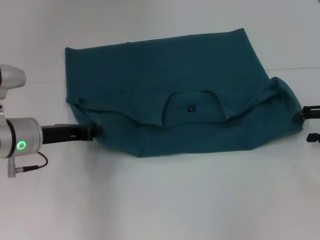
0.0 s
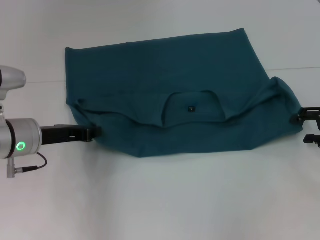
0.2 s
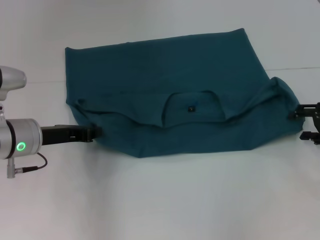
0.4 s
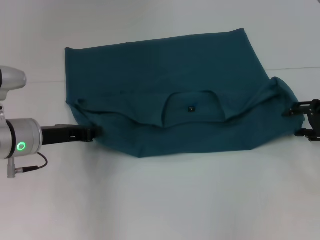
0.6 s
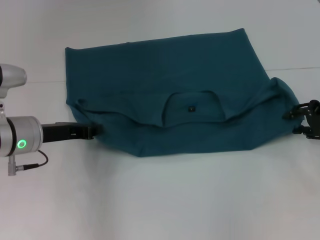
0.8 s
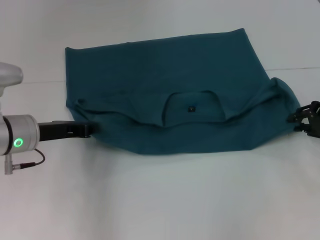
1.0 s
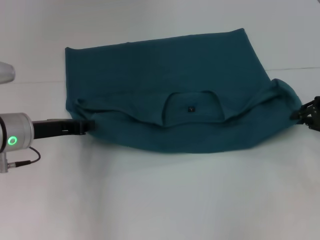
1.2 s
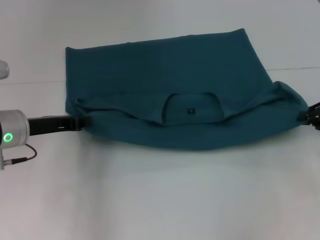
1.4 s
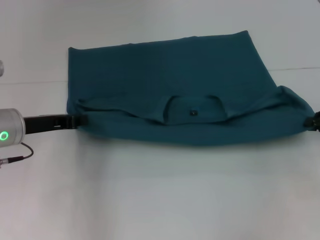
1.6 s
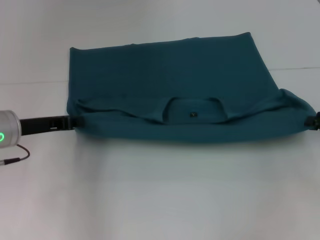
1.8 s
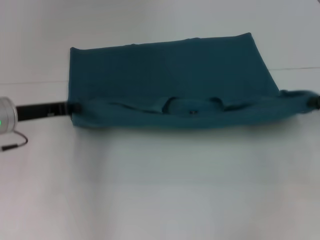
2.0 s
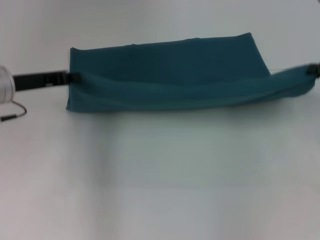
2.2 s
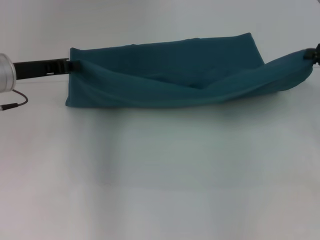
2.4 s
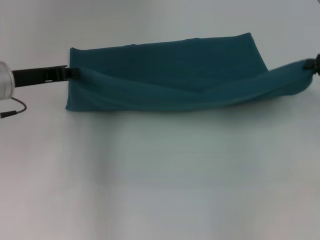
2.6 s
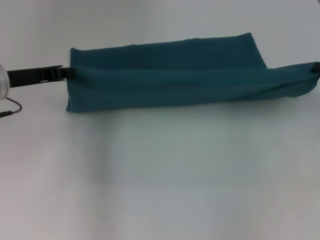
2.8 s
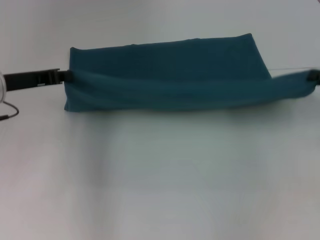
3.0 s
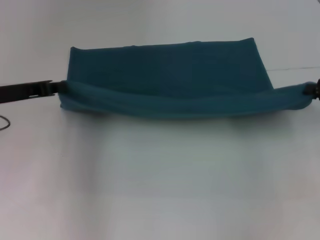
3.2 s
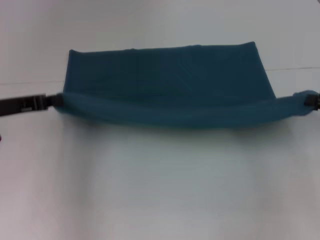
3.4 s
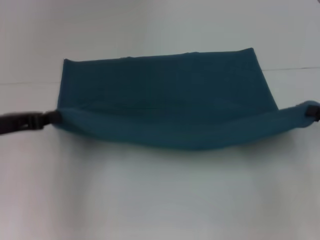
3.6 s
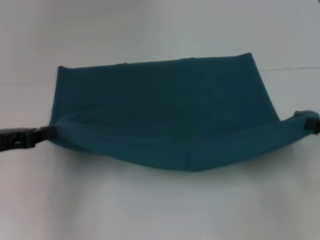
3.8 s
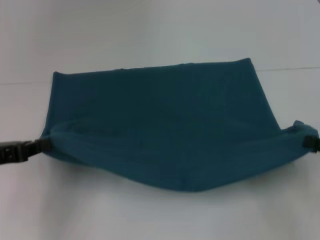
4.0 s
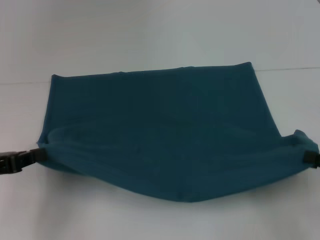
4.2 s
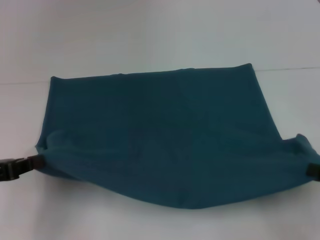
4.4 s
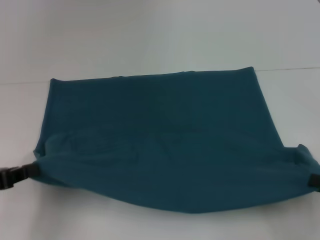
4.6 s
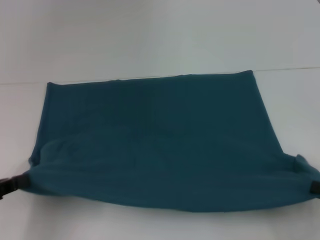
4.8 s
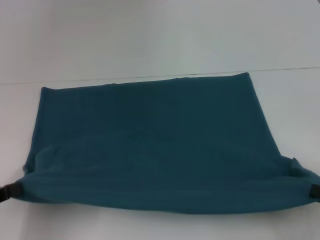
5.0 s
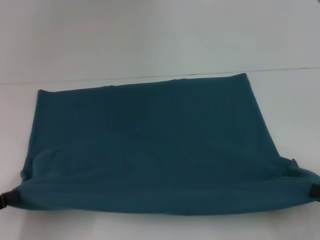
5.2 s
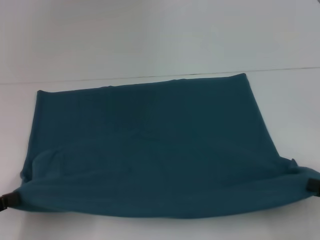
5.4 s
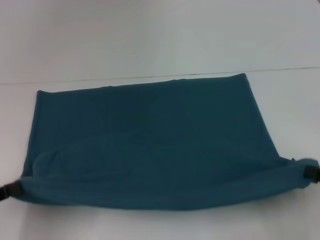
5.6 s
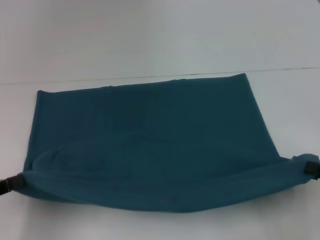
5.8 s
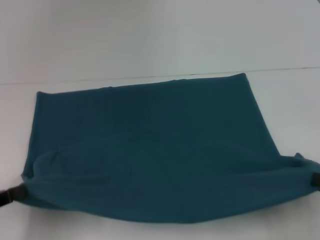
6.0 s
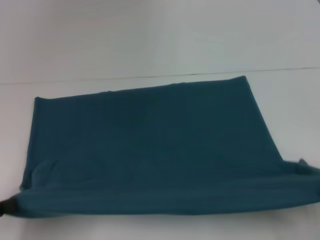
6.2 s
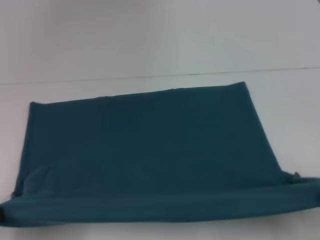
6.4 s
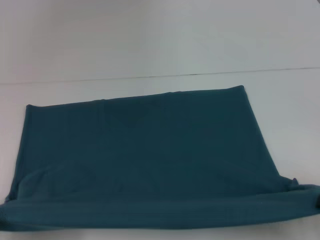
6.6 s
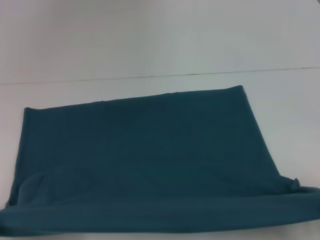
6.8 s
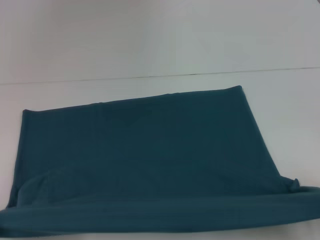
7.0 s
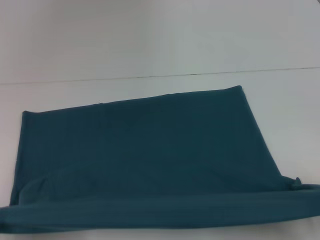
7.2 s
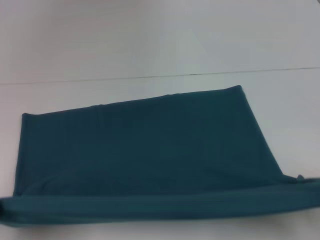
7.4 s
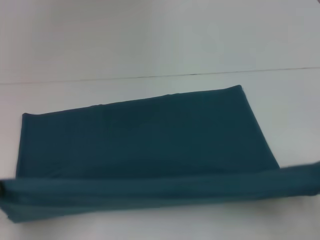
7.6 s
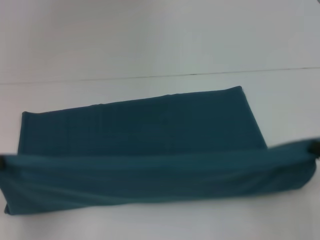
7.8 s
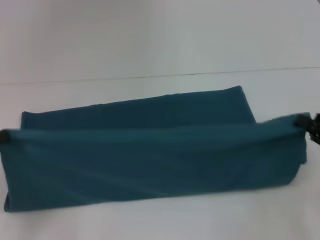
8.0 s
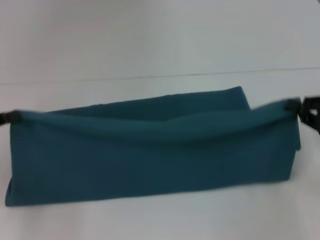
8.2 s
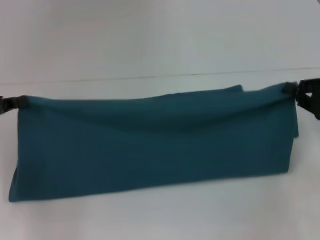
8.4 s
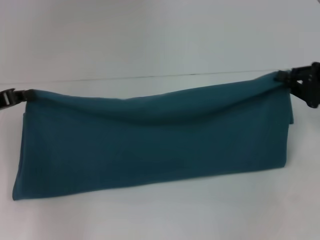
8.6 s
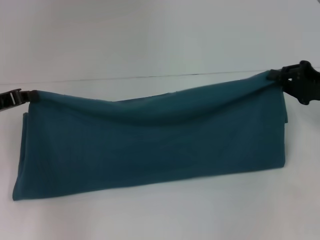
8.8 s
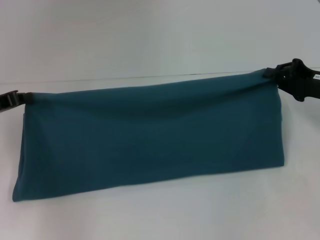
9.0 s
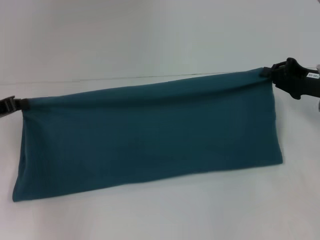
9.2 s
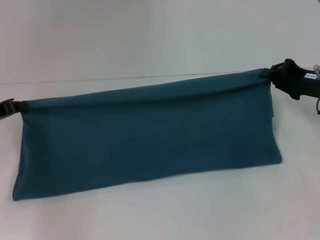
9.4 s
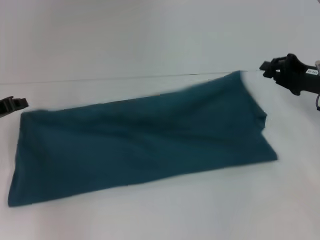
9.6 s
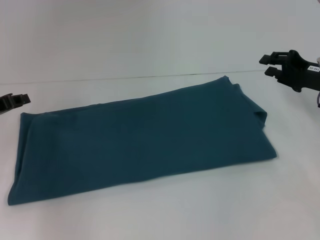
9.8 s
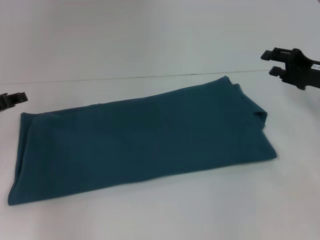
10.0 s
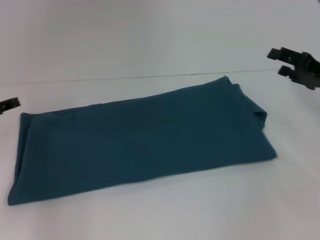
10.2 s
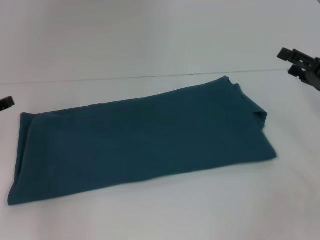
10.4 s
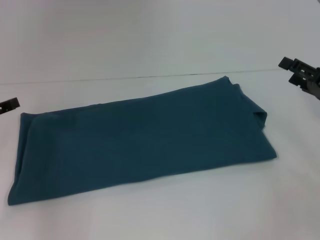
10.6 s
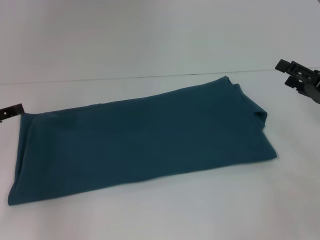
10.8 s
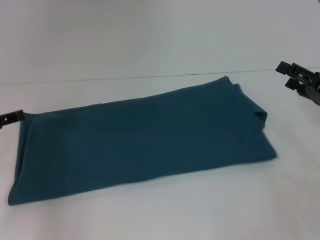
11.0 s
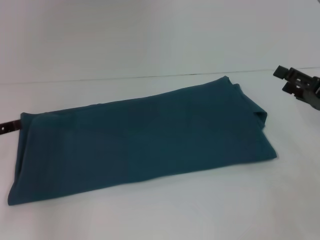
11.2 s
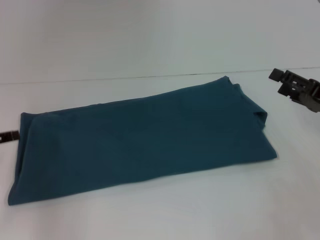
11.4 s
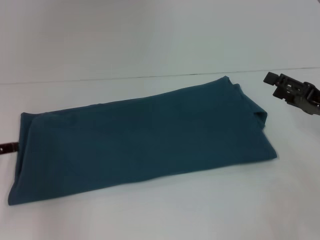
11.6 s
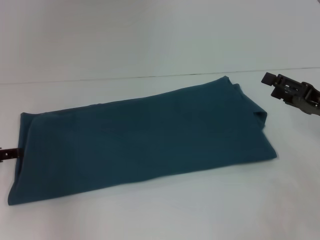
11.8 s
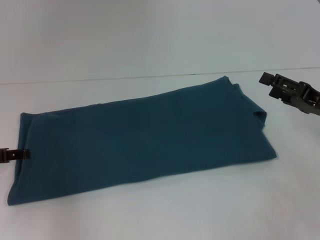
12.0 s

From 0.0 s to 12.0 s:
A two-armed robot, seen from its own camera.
Step, from 0.0 s to 6.4 s: Pull the clothes with your left hand.
Step, from 0.0 s to 6.4 s: Pull the clothes with your right hand.
Step, from 6.6 s to 11.0 s: Fold the clothes to the left.
Step, from 6.6 s to 11.0 s: Fold the clothes to the right.
From 0.0 s to 1.6 s: The right gripper closes up.
From 1.6 s to 3.0 s: The right gripper travels upward by about 5 cm. Meanwhile the left gripper ends up approximately 5 cm from where it was.
From 3.0 s to 4.4 s: Both grippers move backward, approximately 15 cm.
From 4.4 s to 6.0 s: The left gripper ends up about 5 cm from where it was.
From 6.0 s to 7.6 s: The grippers move only a little.
From 7.6 s to 9.0 s: Both grippers move forward, roughly 20 cm.
From 9.0 s to 10.4 s: The right gripper opens, while the left gripper opens.

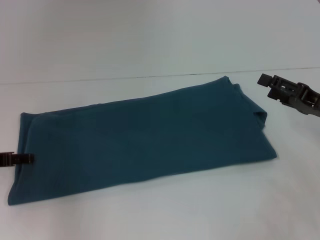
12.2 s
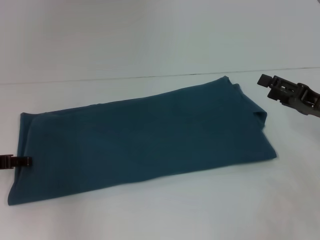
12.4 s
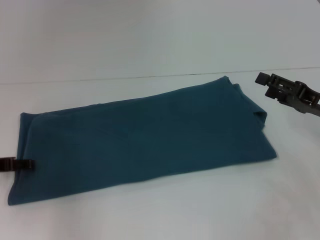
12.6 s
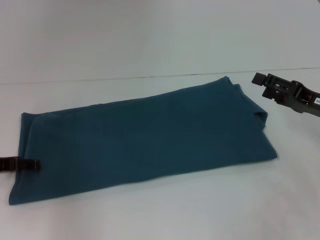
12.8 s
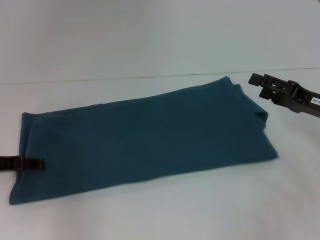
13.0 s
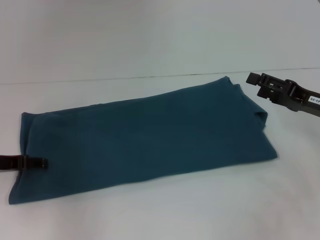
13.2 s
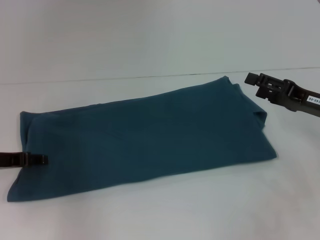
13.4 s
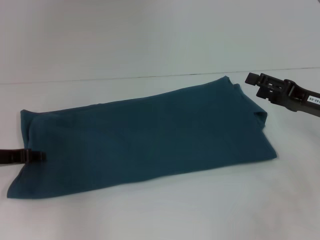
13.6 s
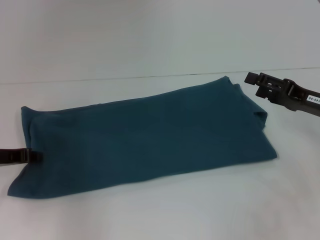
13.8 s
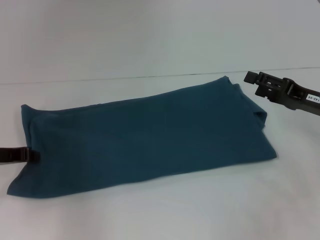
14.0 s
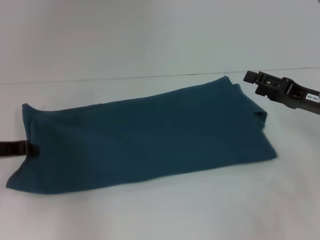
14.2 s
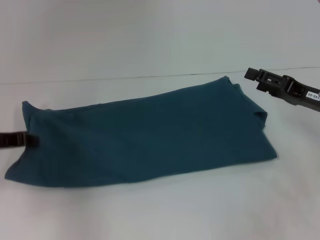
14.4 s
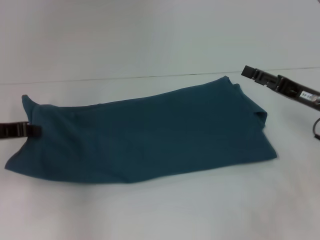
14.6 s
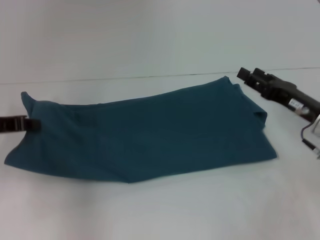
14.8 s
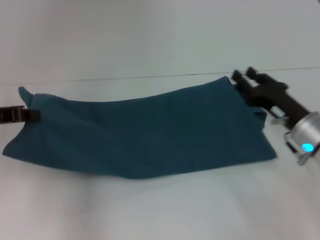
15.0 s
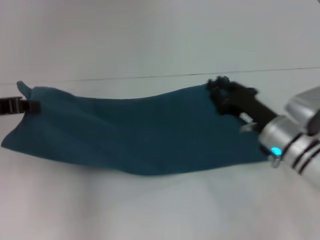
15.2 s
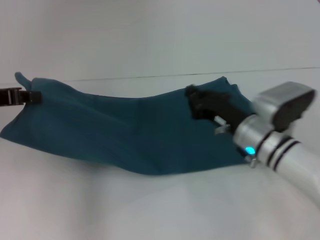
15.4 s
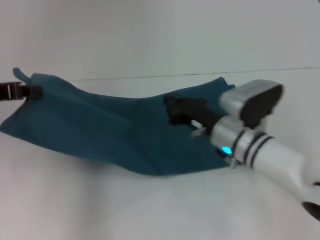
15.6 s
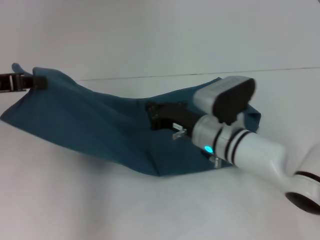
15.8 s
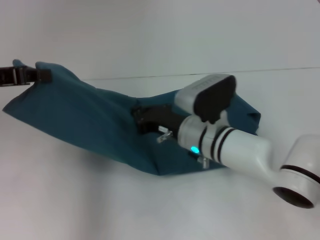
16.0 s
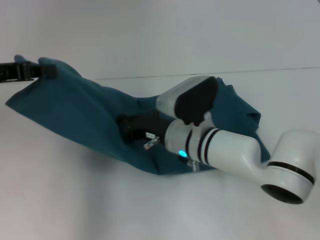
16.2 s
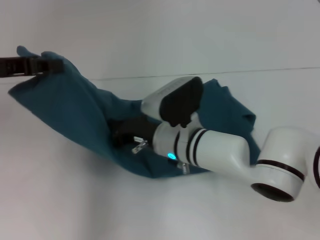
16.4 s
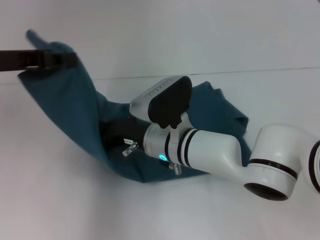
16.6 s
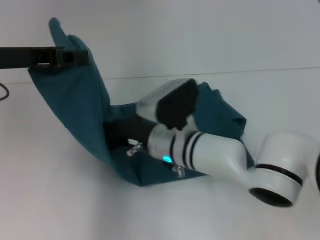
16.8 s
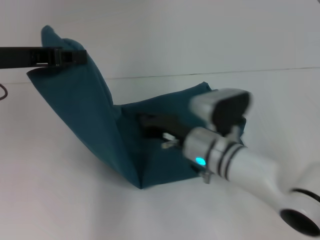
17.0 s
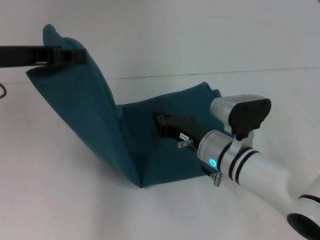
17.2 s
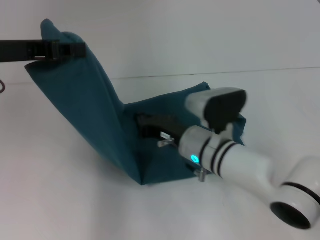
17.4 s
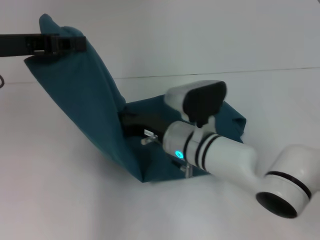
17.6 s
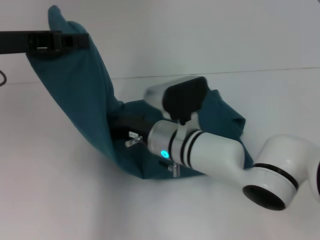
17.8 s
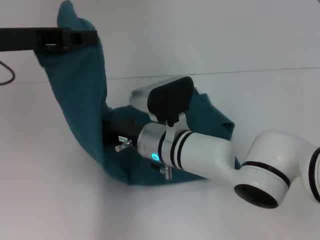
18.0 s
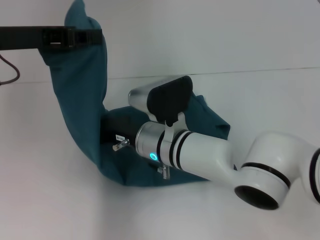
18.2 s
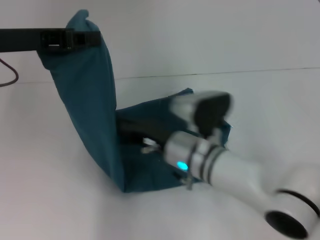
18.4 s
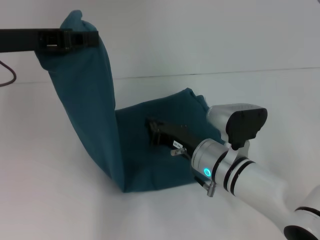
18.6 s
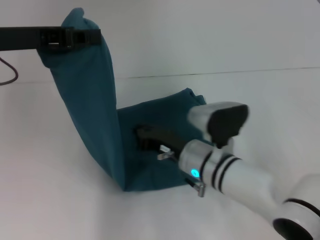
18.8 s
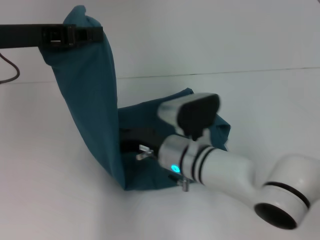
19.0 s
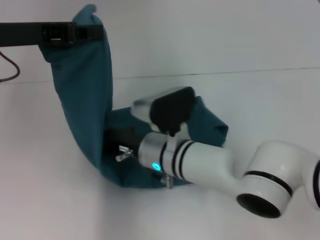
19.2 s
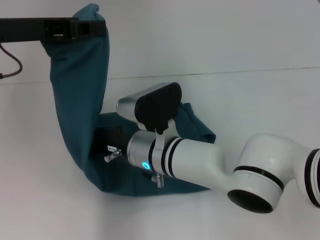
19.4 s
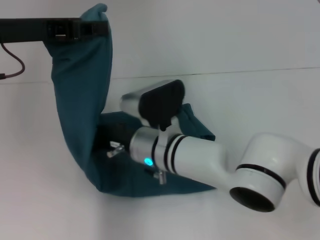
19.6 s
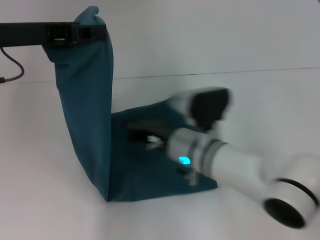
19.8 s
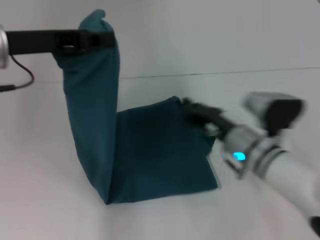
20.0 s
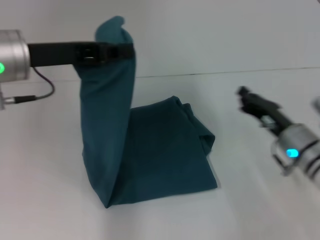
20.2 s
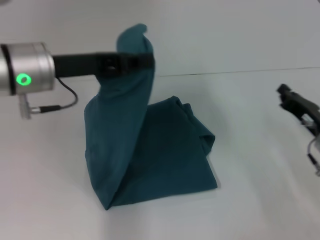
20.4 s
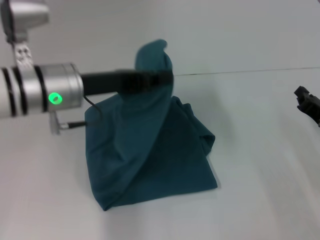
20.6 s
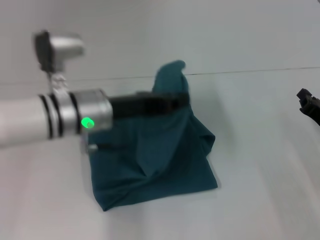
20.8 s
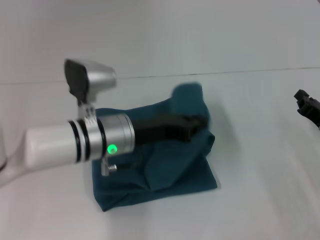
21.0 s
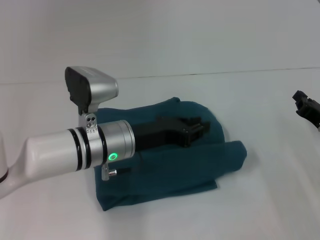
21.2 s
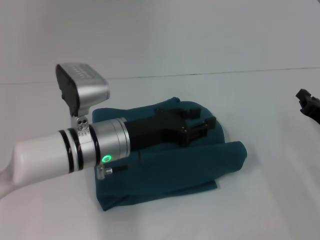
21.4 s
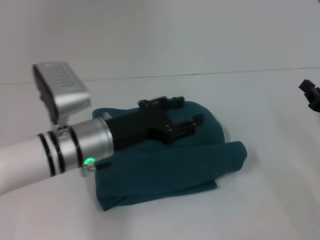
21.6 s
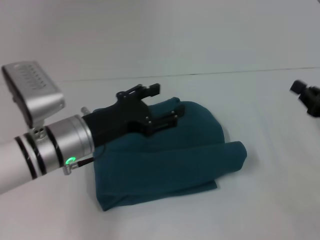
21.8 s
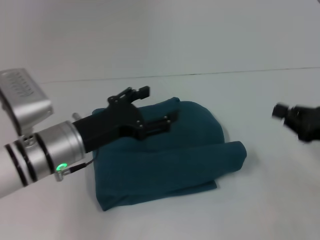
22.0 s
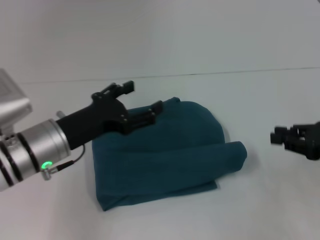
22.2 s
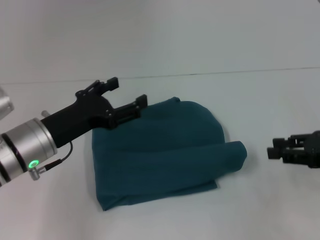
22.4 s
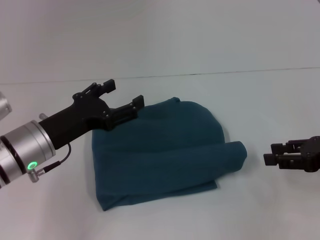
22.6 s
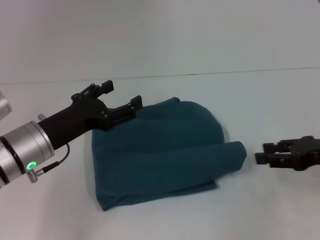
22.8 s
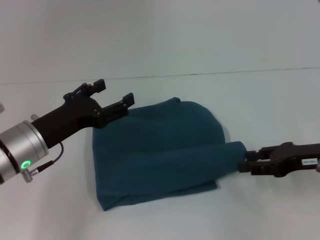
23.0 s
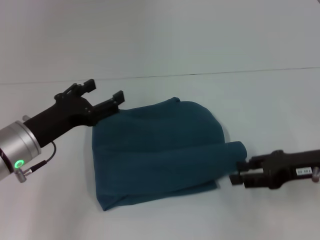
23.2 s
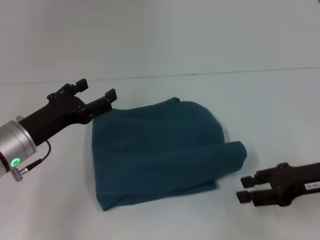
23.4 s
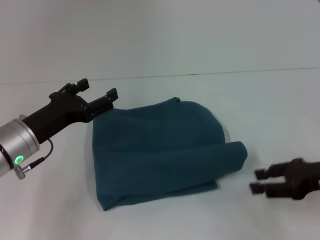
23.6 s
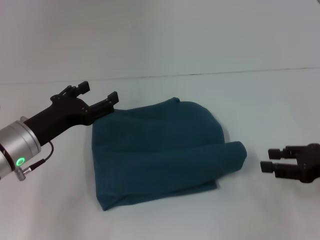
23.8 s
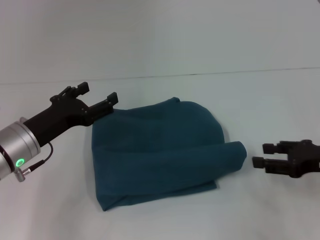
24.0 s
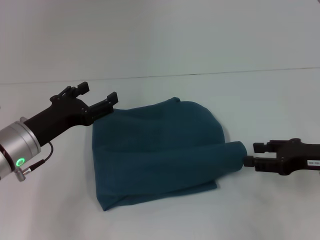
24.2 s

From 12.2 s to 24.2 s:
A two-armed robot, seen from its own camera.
Step, from 12.2 s to 18.4 s: Press the middle of the clothes with your right hand.
Step, from 18.6 s to 21.4 s: Fold the clothes to the left.
From 12.2 s to 13.8 s: The left gripper closes its fingers.
From 13.8 s to 15.2 s: The left gripper moves upward, about 10 cm, and closes up. Meanwhile the right gripper travels to the left and downward by approximately 10 cm, and closes up.
From 15.2 s to 16.6 s: The right gripper goes some 20 cm to the left, and closes up. The left gripper heads upward, covering about 5 cm.
From 16.6 s to 18.2 s: The right gripper goes to the right and returns, approximately 10 cm each way.
From 18.2 s to 19.8 s: The right gripper goes left and right, roughly 10 cm each way, reversing 2 times.
From 19.8 s to 21.2 s: The left gripper shifts approximately 20 cm downward and to the right. The right gripper moves to the right, roughly 25 cm.
From 21.2 s to 22.6 s: The right gripper is displaced upward by approximately 10 cm, and opens up. The left gripper goes about 10 cm to the left, and opens up.
From 22.6 s to 24.2 s: The grippers move only a little.
